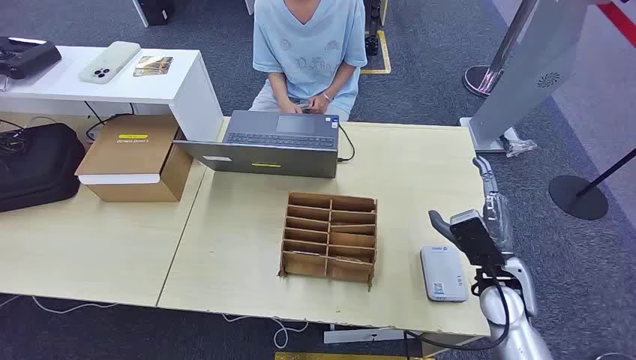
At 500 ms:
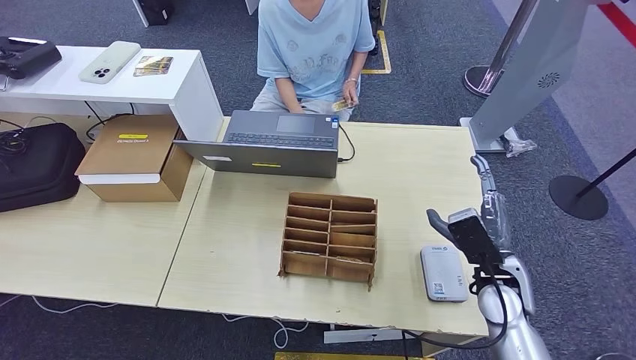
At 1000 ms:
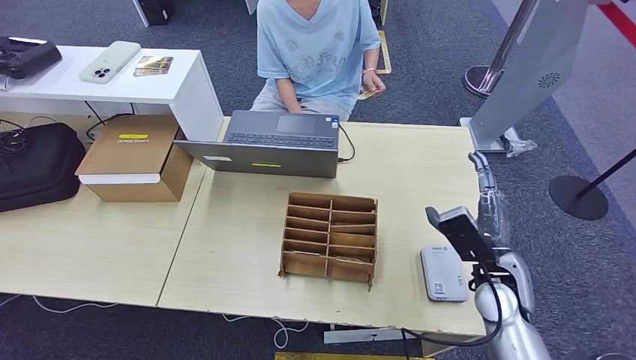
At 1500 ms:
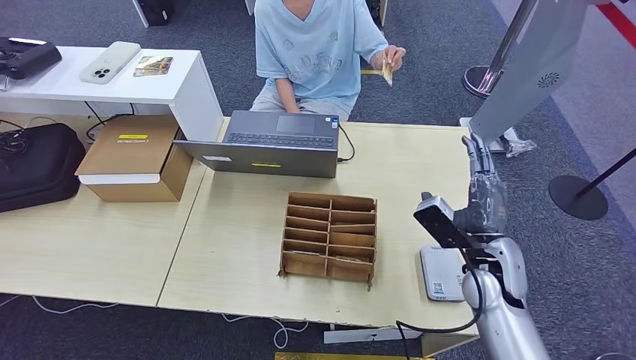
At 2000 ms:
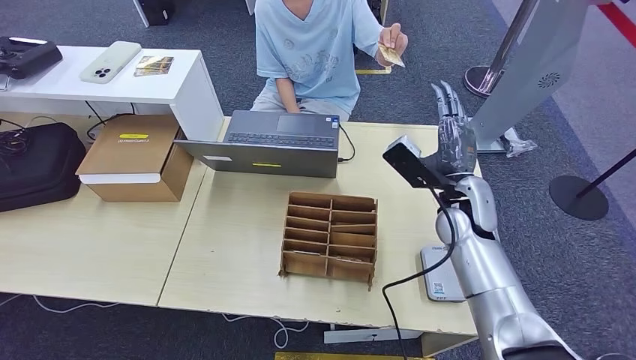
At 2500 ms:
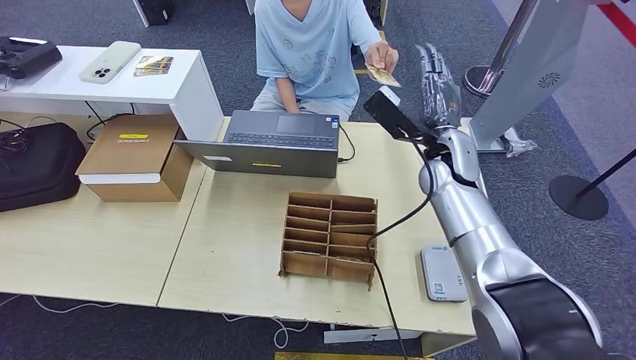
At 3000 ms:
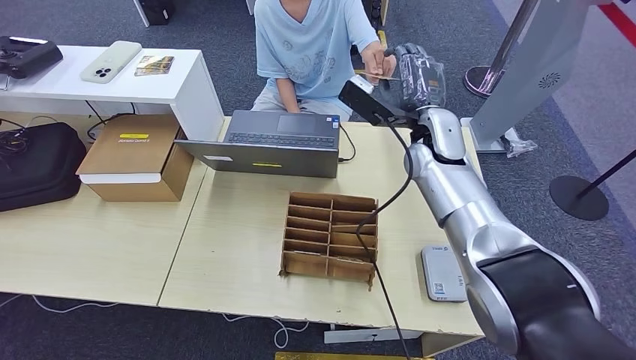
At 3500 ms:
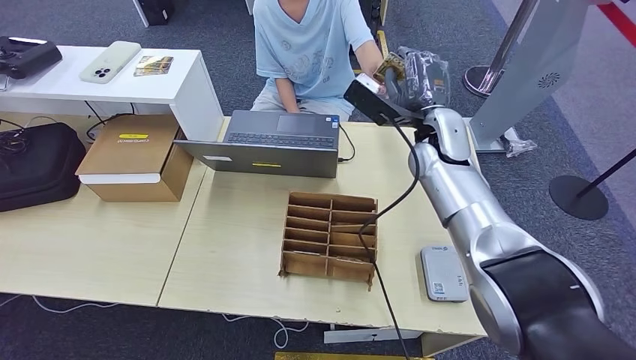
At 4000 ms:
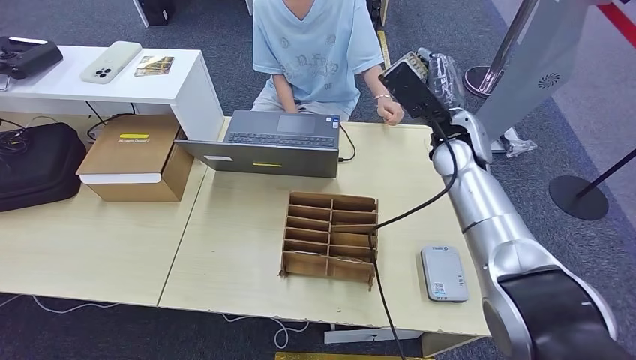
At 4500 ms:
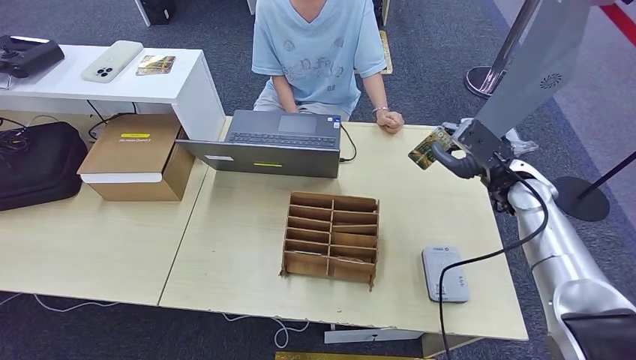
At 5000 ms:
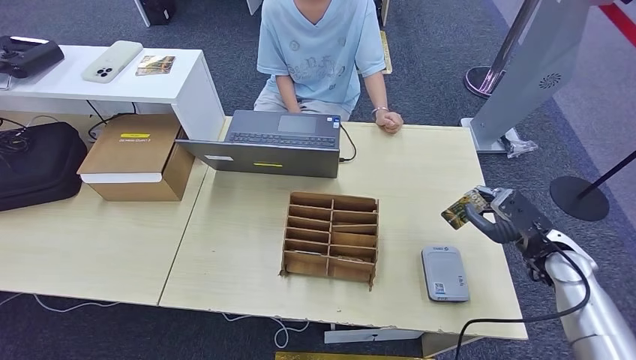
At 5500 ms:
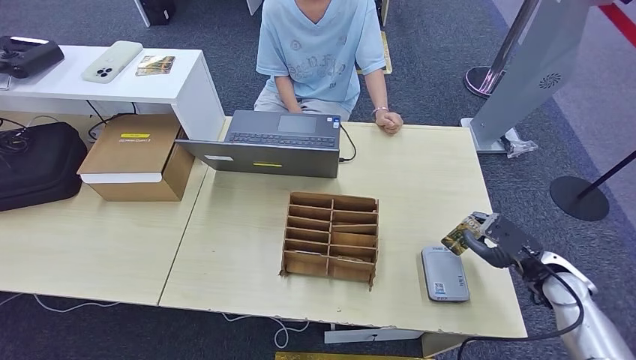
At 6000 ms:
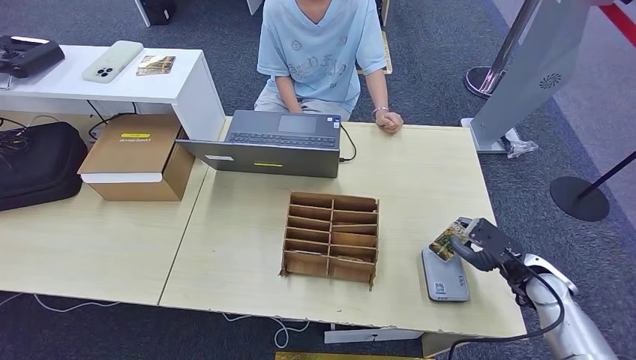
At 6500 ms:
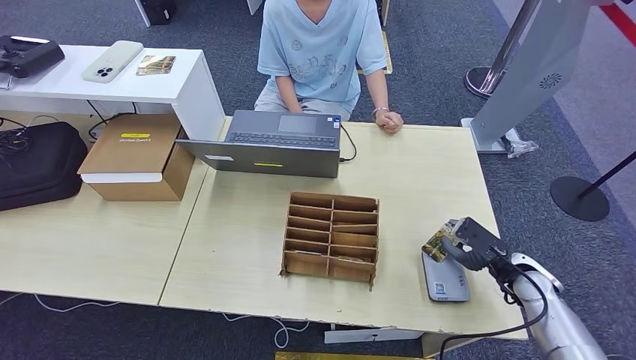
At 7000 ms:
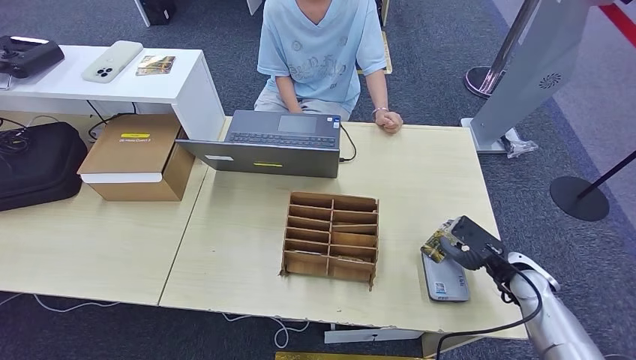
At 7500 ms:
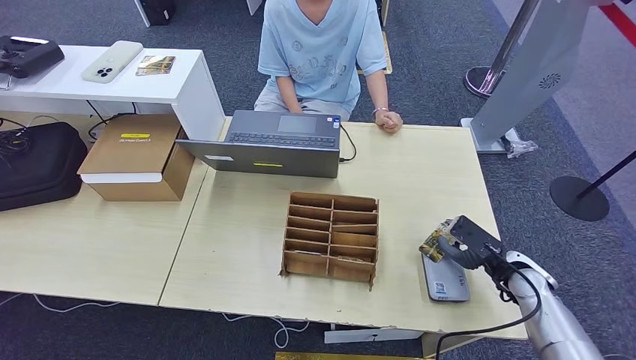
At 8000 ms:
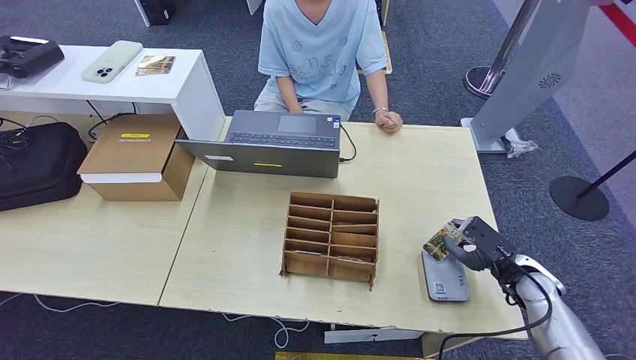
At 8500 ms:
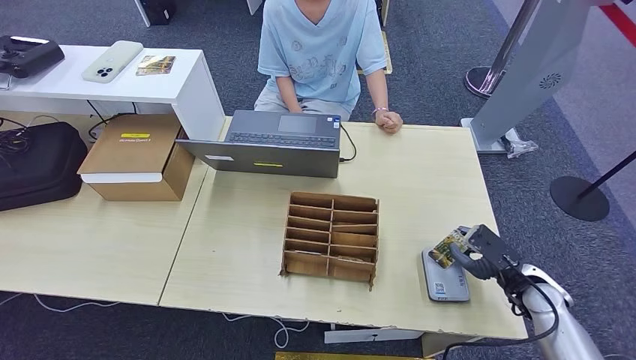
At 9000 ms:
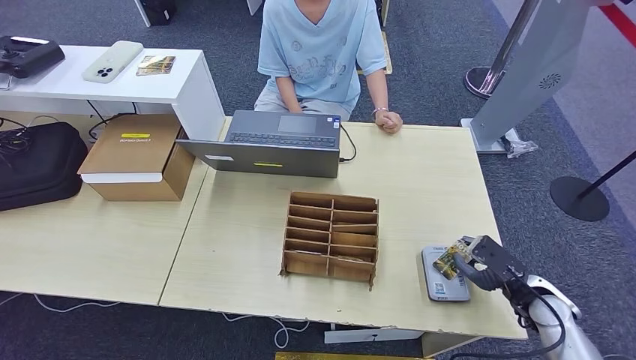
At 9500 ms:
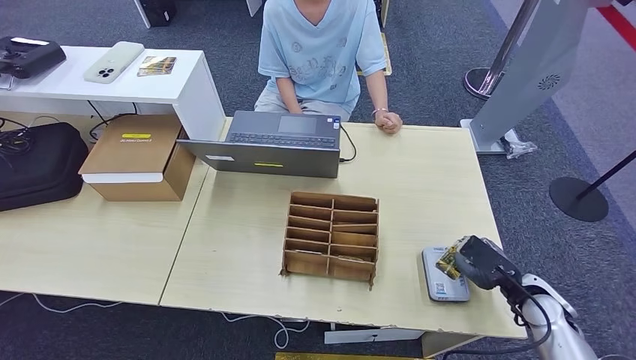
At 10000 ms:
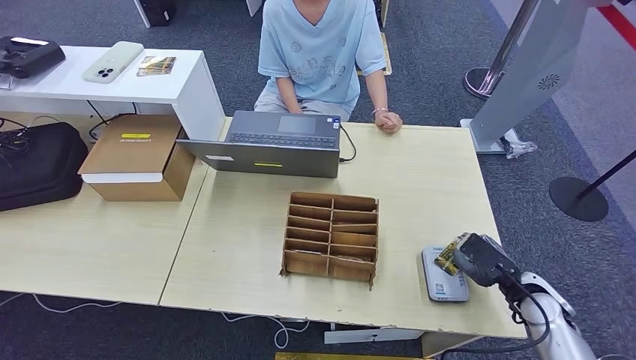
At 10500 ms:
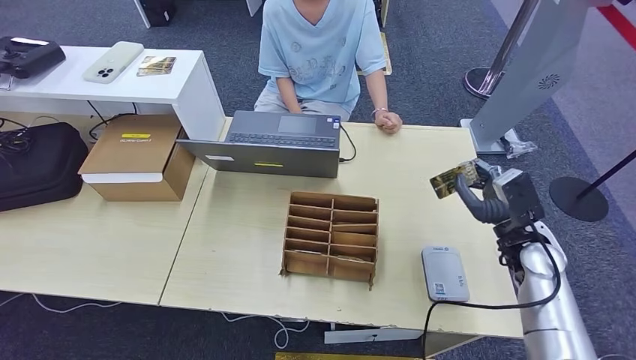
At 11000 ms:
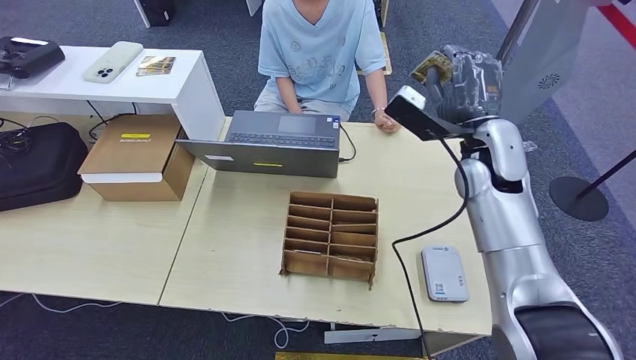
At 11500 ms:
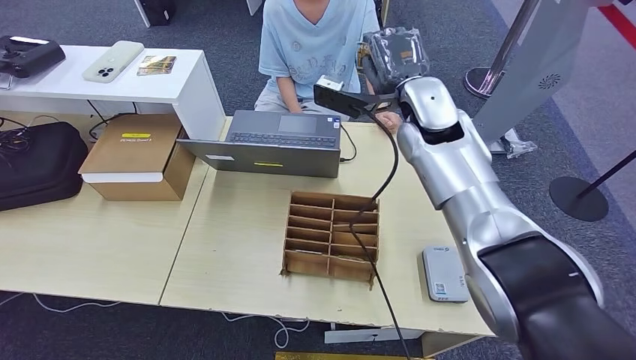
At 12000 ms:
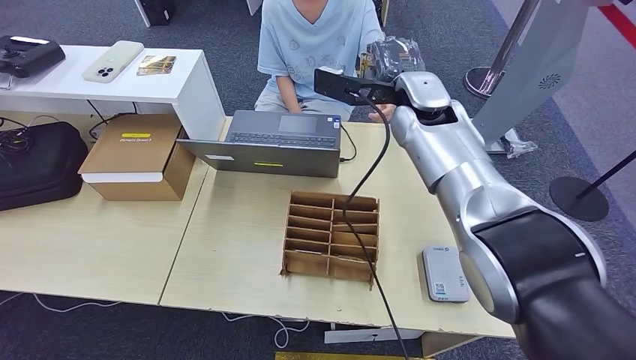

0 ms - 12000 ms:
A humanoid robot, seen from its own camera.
Step, 0 ms - 4000 ms: Take the ID card from the person's hand.
Step, 4500 ms - 7500 ms: Place the ID card on the card reader.
2000 ms - 4000 ms: The right hand moves upward and forward, approximately 10 cm.
4000 ms - 6000 ms: The right hand travels downward, backward and to the right by roughly 30 cm.
6000 ms - 10000 ms: There are only small adjustments of the hands.
10000 ms - 12000 ms: The right hand moves upward, forward and to the left, roughly 40 cm.

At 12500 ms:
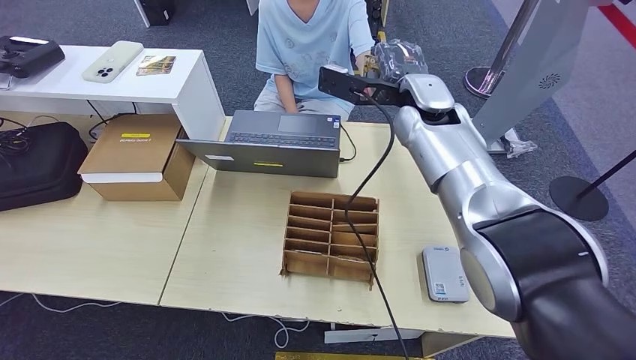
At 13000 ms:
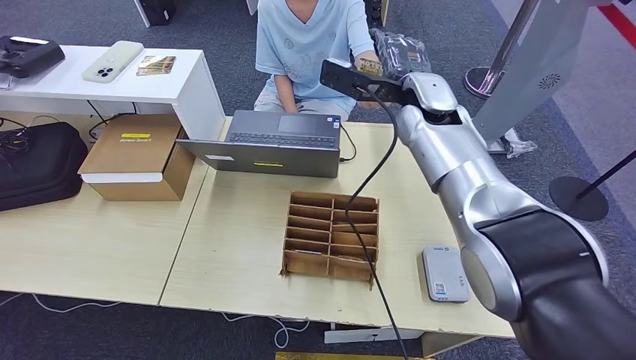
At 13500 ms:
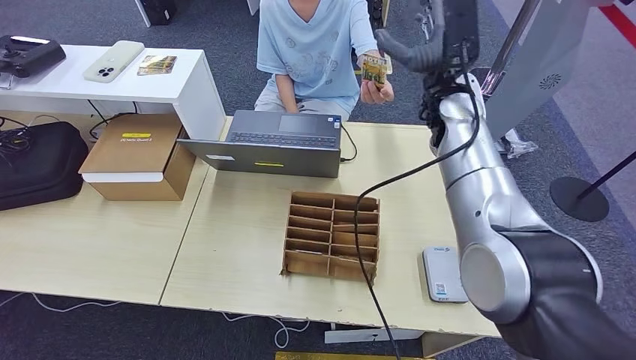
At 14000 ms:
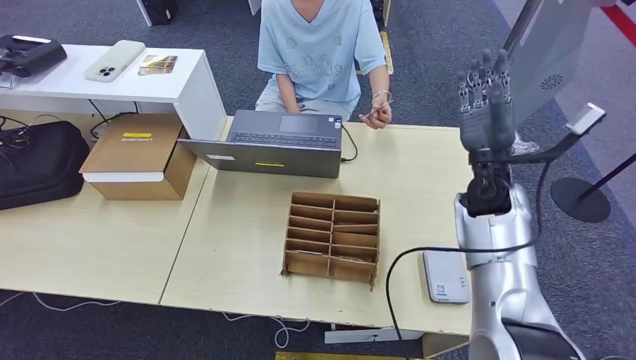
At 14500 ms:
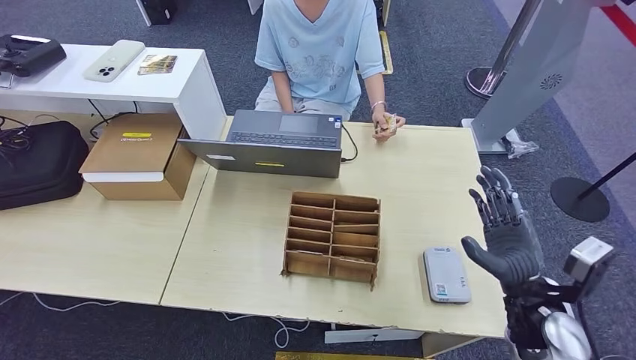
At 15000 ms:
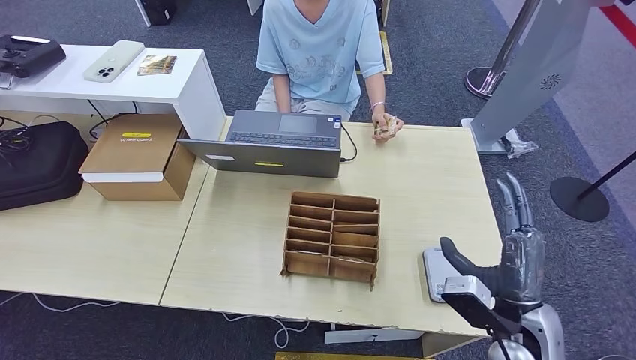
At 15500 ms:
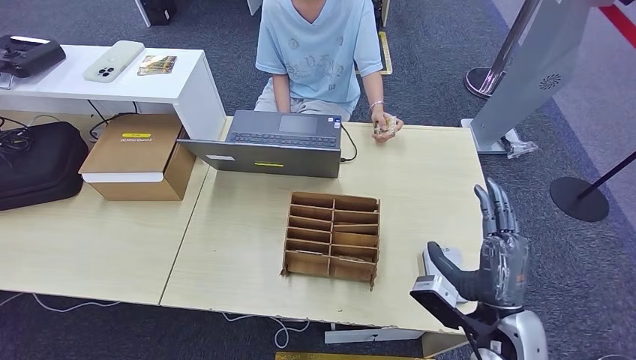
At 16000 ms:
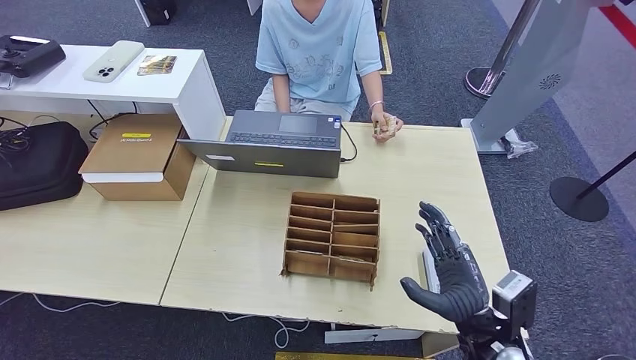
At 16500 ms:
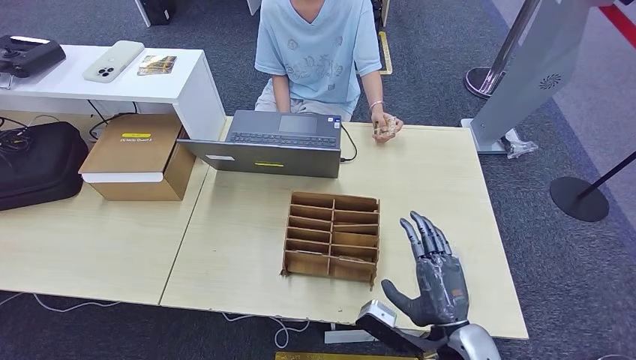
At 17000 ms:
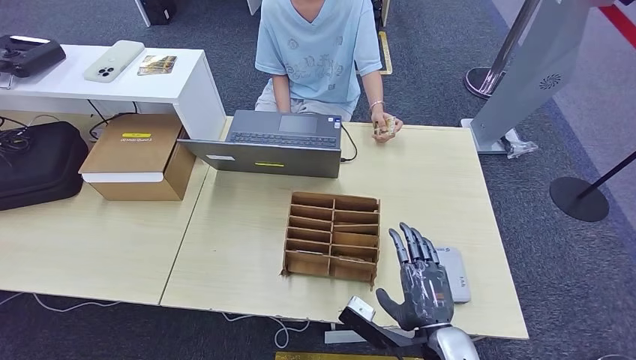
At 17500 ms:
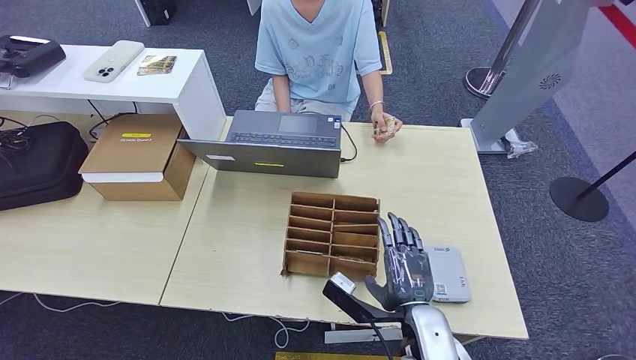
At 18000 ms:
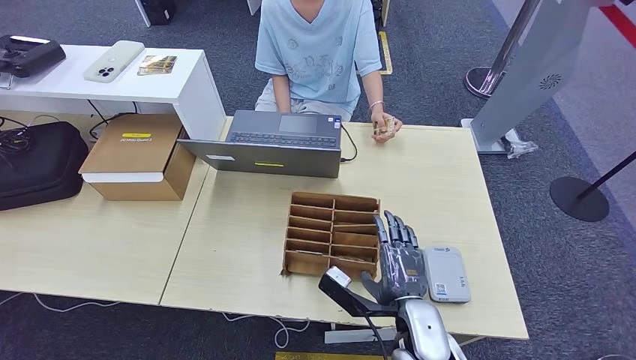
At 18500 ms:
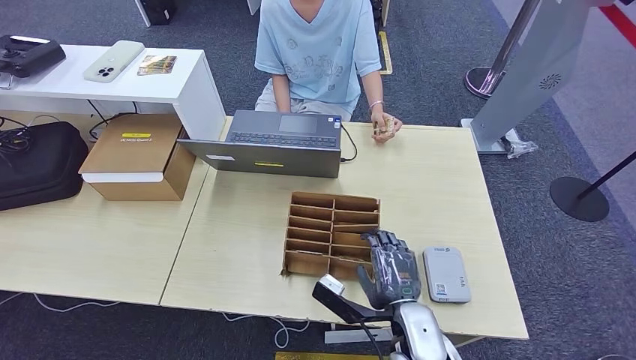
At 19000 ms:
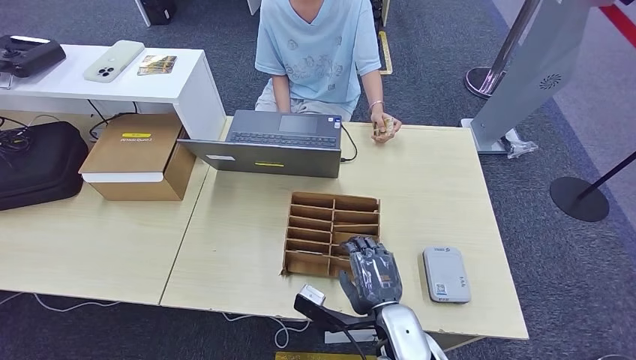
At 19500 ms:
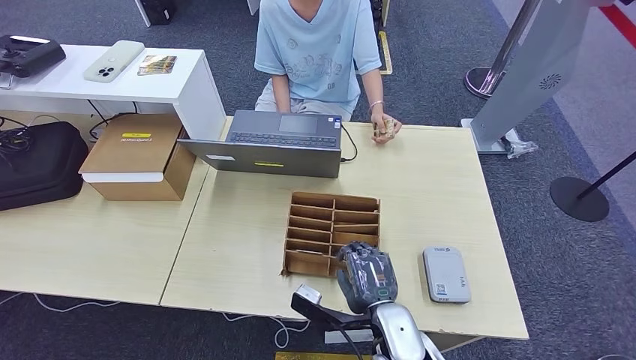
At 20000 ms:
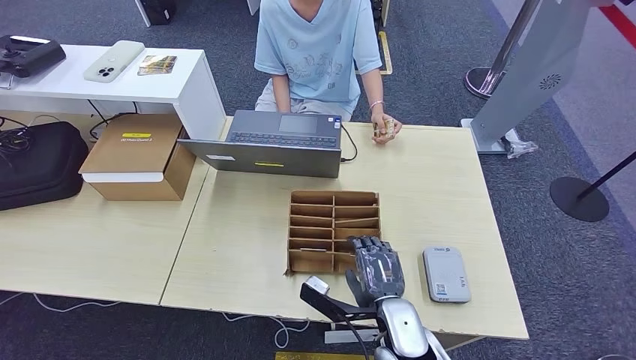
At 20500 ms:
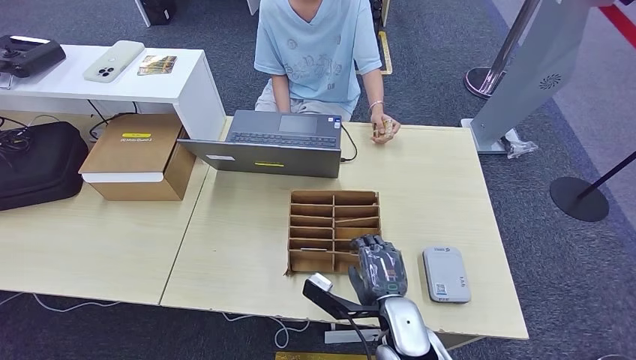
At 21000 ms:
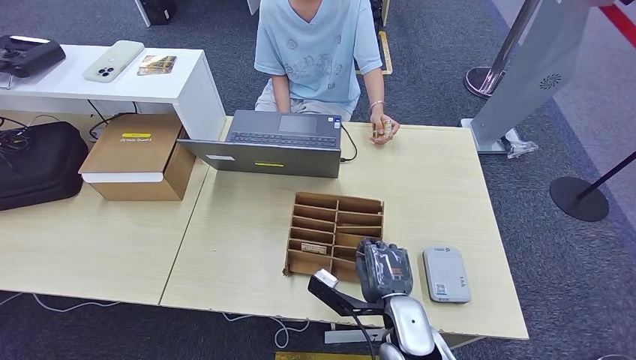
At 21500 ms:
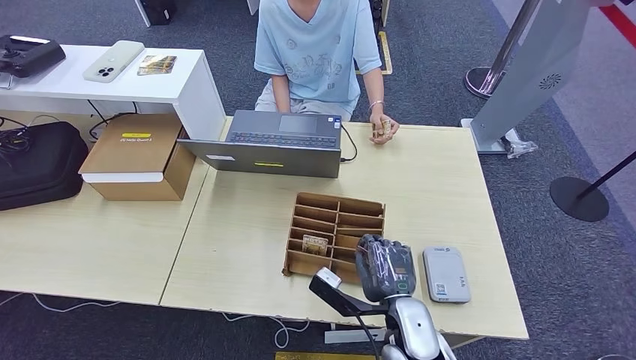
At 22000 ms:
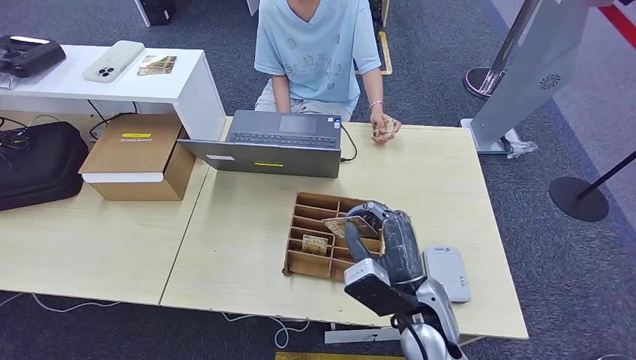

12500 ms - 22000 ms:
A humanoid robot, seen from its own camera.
Step, 18000 ms - 22000 ms: Pick up the room key from the key card box.
12500 ms - 14500 ms: The right hand travels backward, downward and to the right by roughly 35 cm.
14500 ms - 16500 ms: The right hand heads to the left and backward, covering approximately 15 cm.
16500 ms - 18000 ms: The right hand travels to the left by roughly 5 cm.
18000 ms - 20000 ms: The hands stay close to where they were, moving slightly.
20000 ms - 22000 ms: The right hand goes about 5 cm upward.
